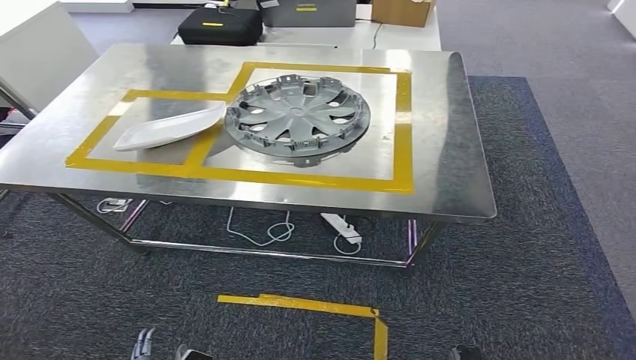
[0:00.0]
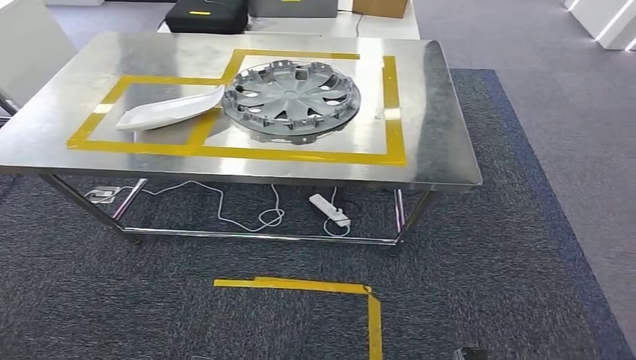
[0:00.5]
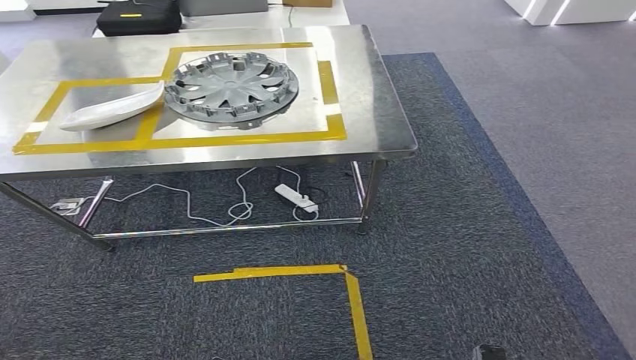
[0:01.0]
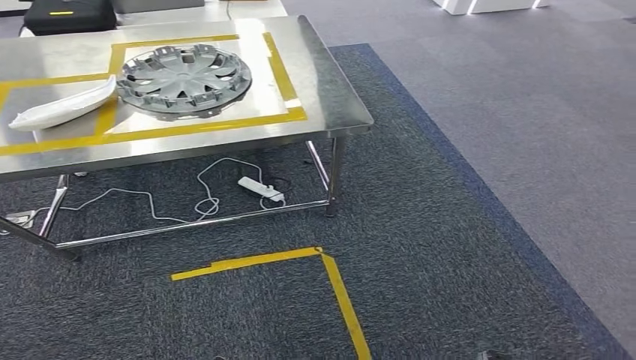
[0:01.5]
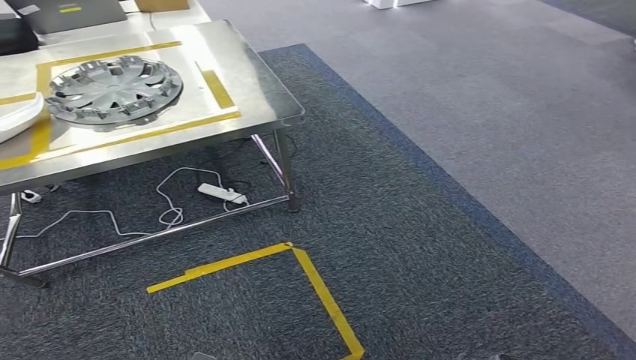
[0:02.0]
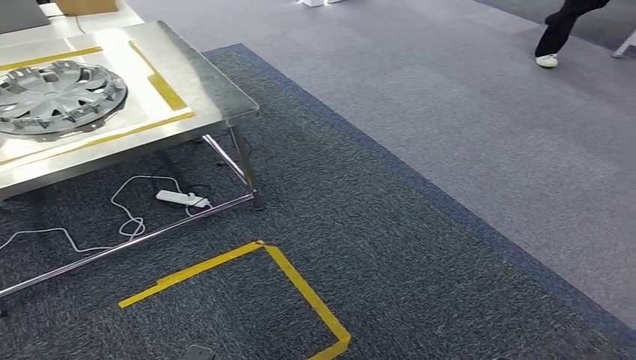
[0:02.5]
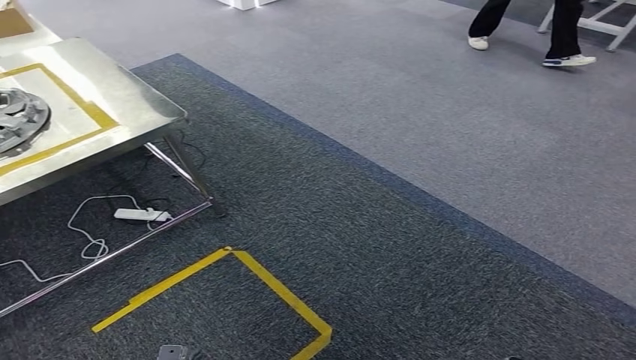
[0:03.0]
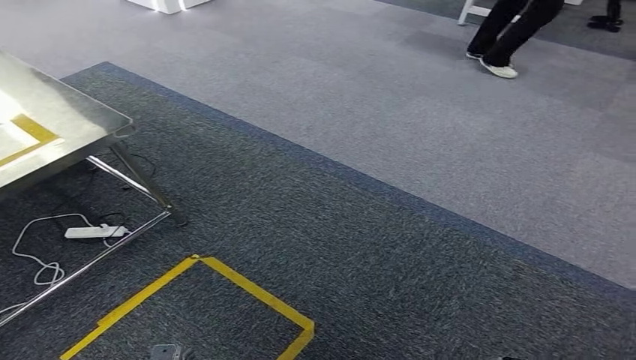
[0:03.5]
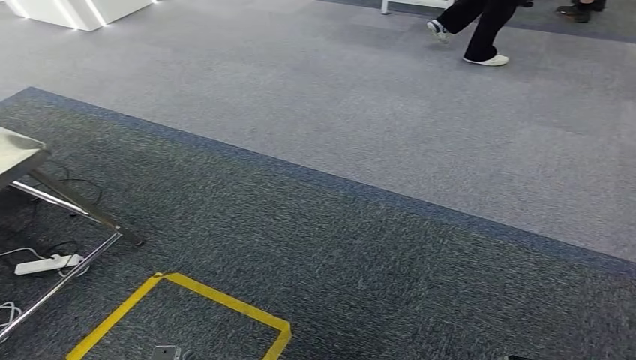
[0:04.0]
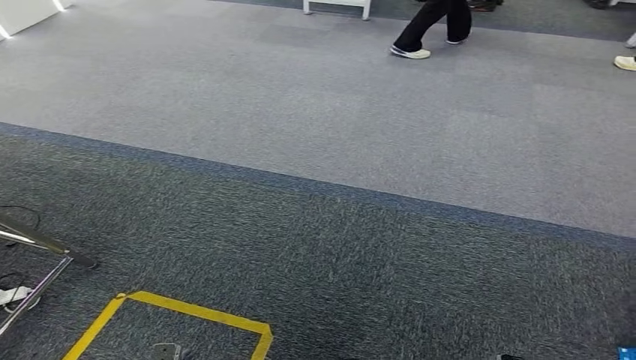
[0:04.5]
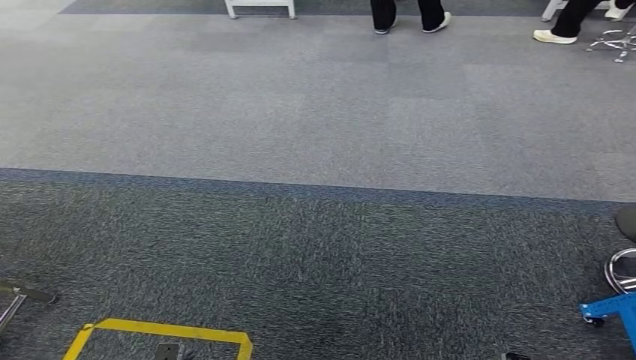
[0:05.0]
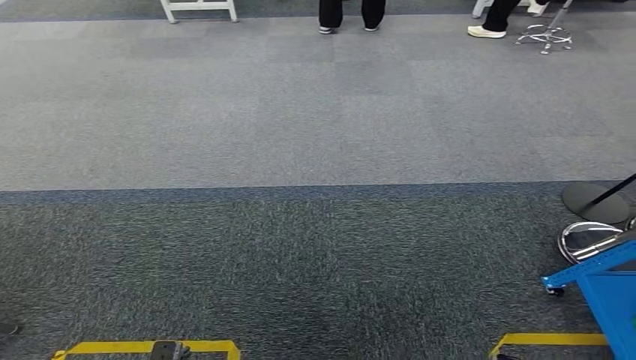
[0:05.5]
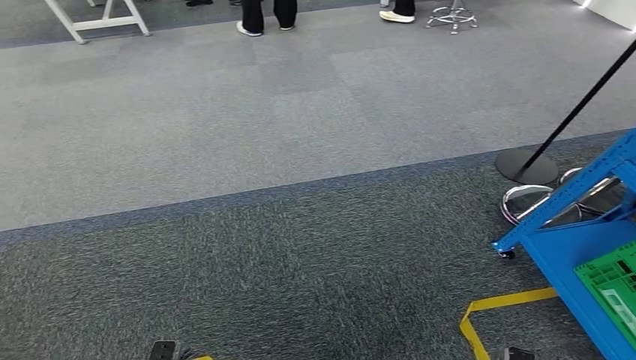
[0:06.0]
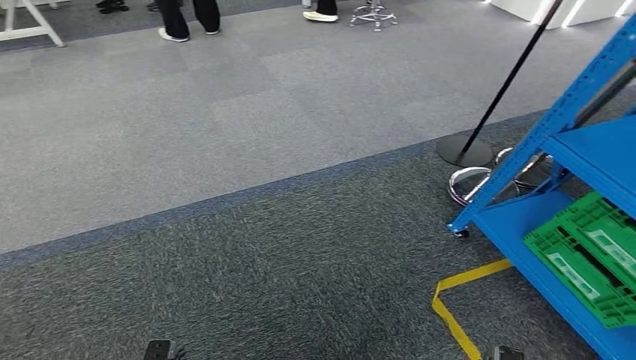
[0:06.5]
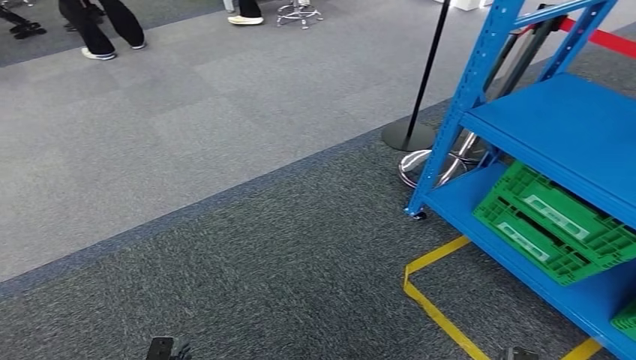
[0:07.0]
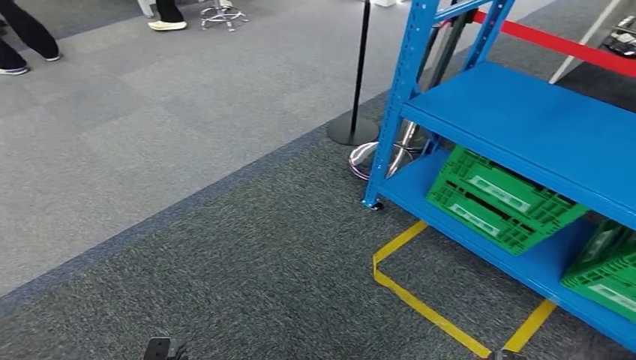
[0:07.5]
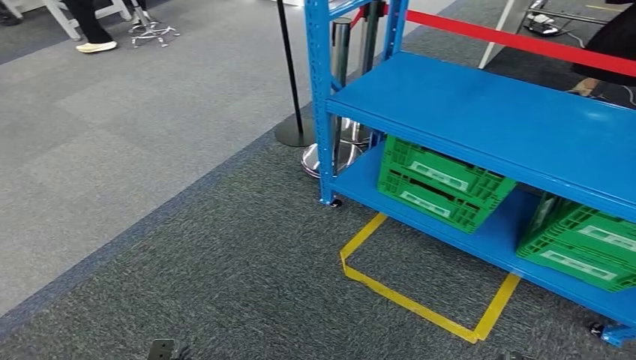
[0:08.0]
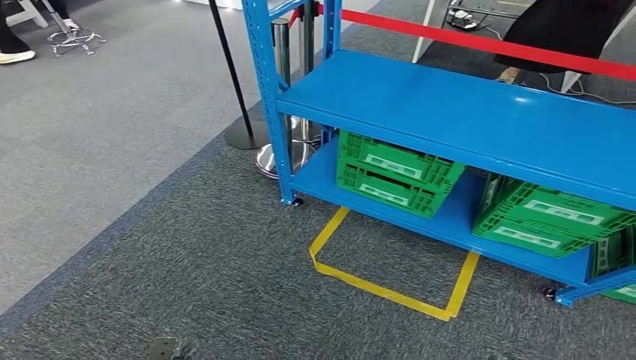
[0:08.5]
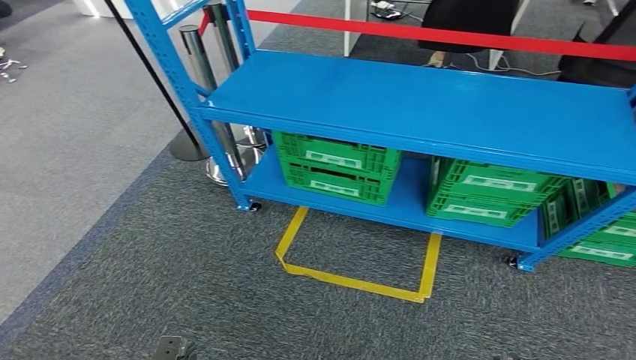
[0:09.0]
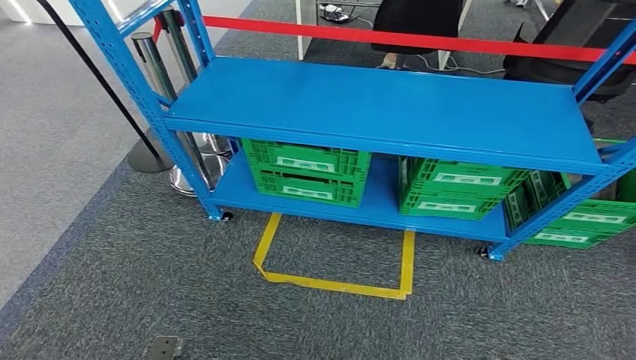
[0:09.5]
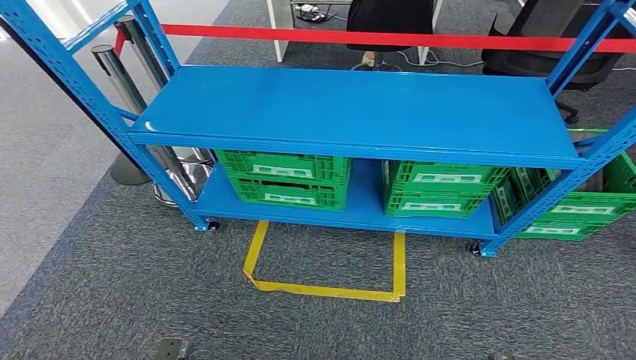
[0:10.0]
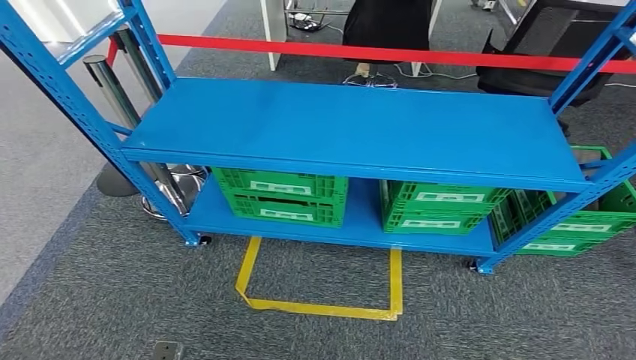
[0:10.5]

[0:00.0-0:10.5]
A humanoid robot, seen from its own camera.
Step, 0:00.0 to 0:05.5: Insert the small component into the corresponding slot on the workbench.

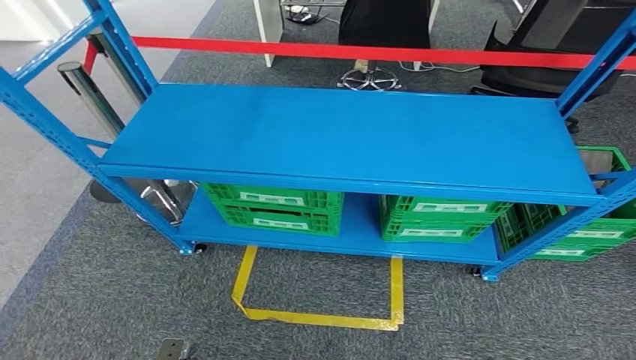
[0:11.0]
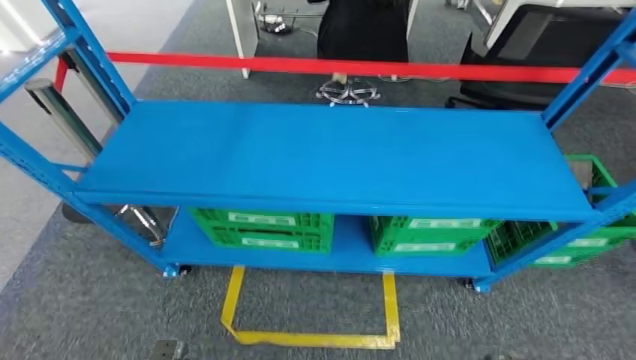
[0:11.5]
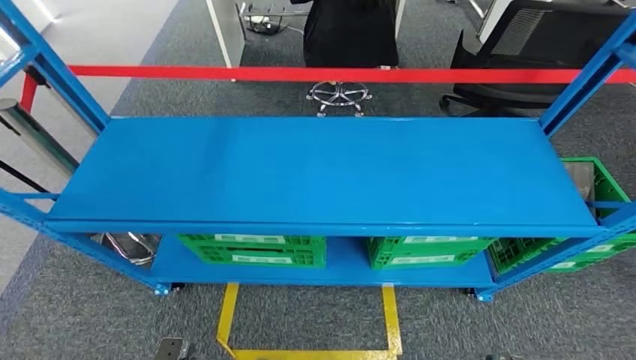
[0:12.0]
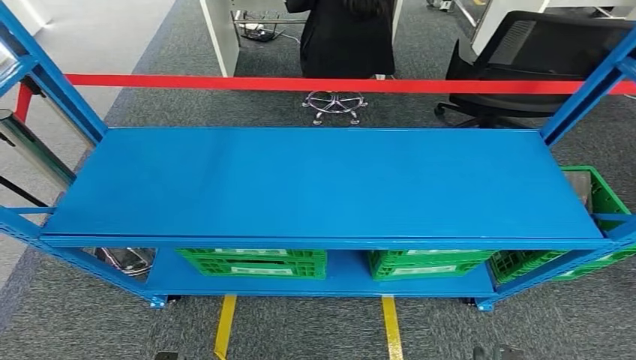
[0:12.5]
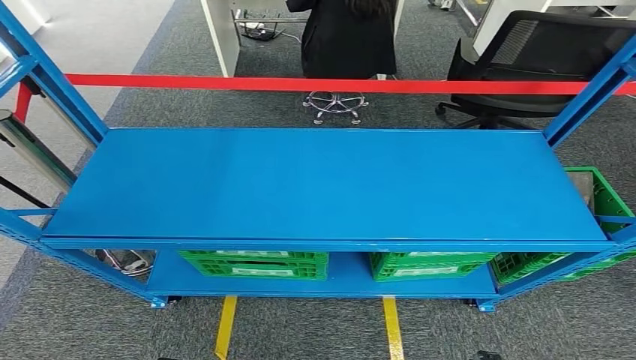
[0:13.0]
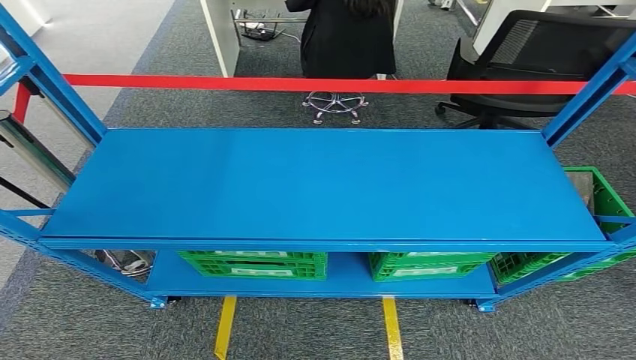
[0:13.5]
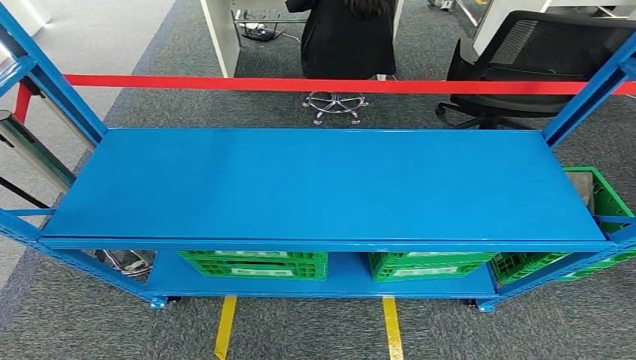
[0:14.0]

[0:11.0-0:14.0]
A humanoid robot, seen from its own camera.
Step, 0:11.0 to 0:14.0: Move to the initial position of the workbench.
0:12.5 to 0:14.0: The left hand travels to the left by about 5 cm. Meanwhile the right hand is displaced backward by some 5 cm.
